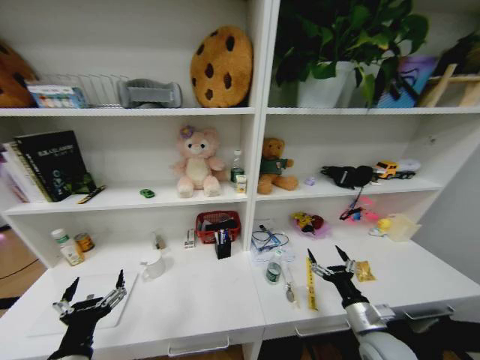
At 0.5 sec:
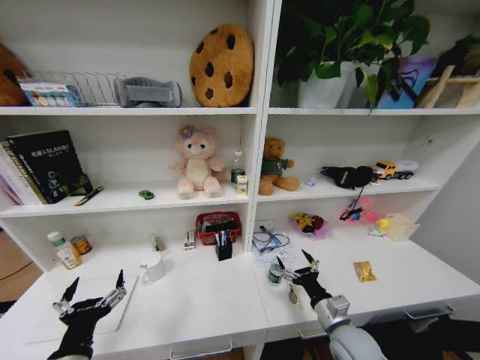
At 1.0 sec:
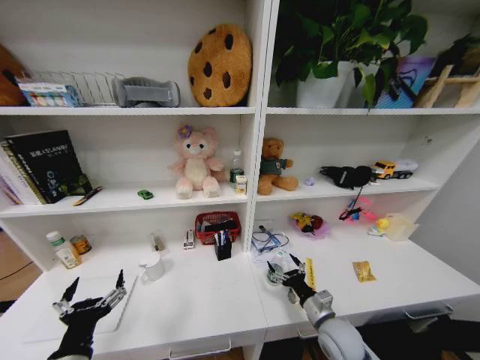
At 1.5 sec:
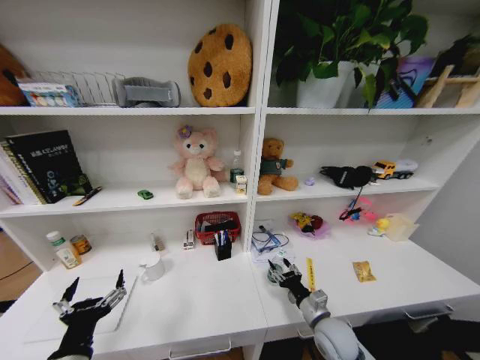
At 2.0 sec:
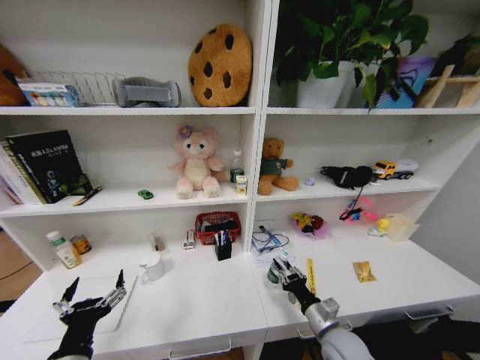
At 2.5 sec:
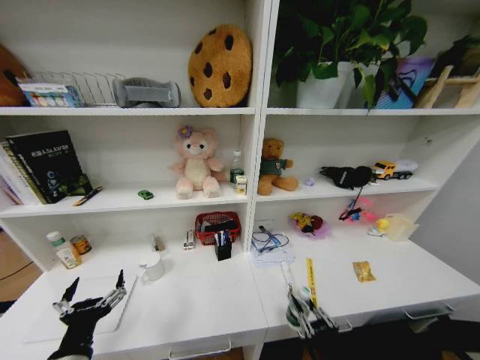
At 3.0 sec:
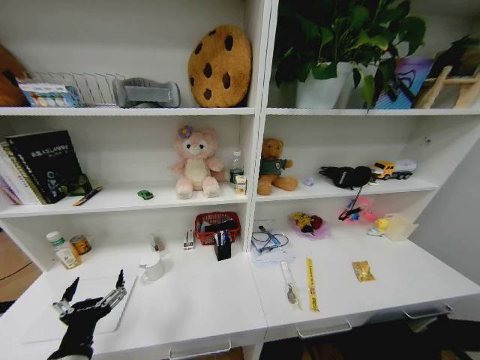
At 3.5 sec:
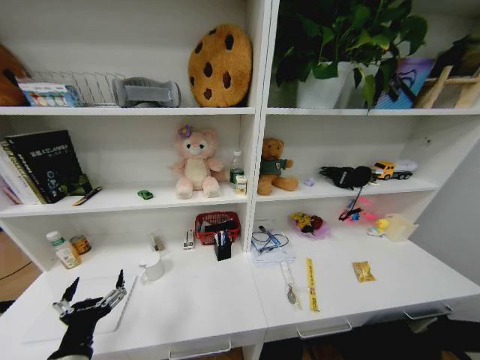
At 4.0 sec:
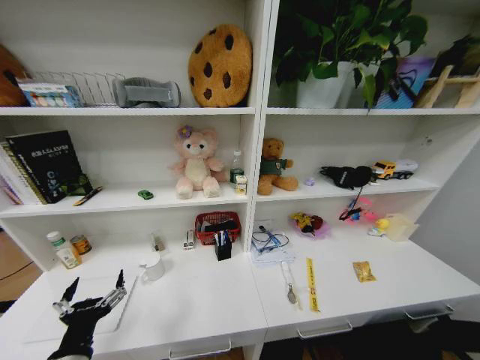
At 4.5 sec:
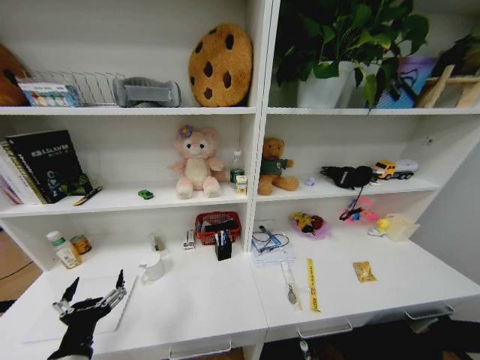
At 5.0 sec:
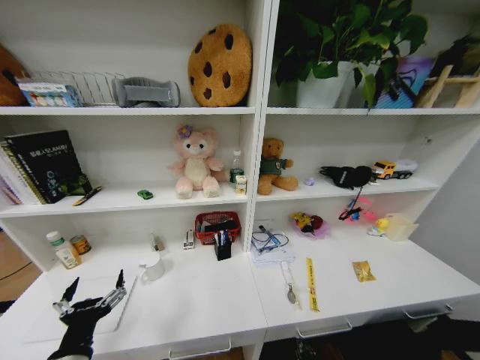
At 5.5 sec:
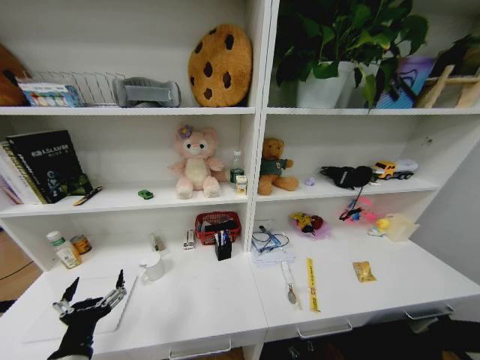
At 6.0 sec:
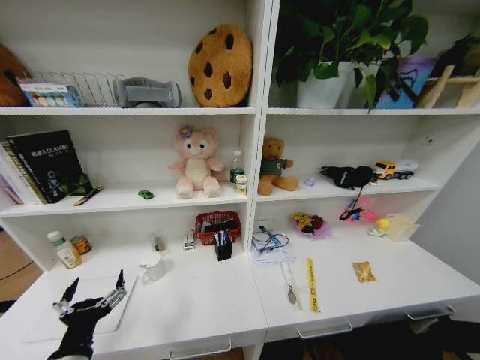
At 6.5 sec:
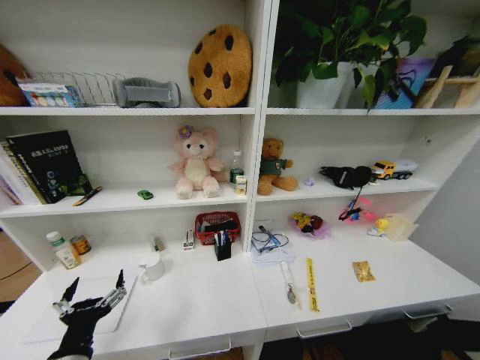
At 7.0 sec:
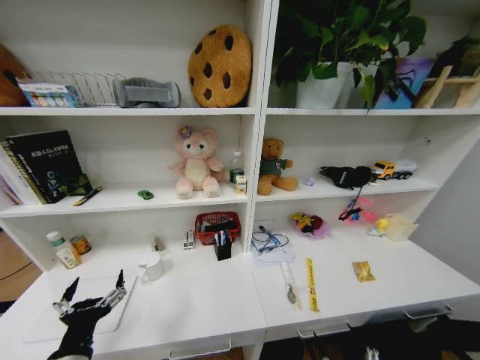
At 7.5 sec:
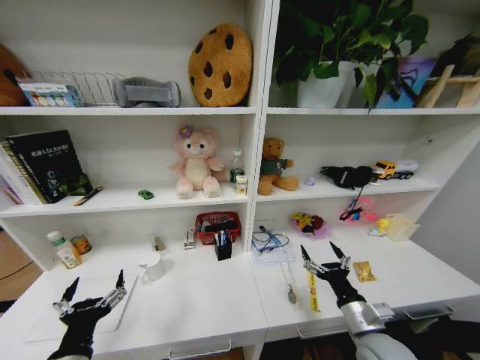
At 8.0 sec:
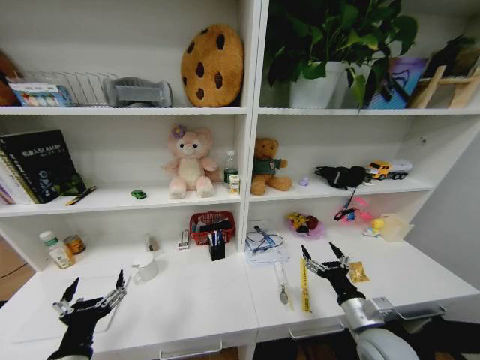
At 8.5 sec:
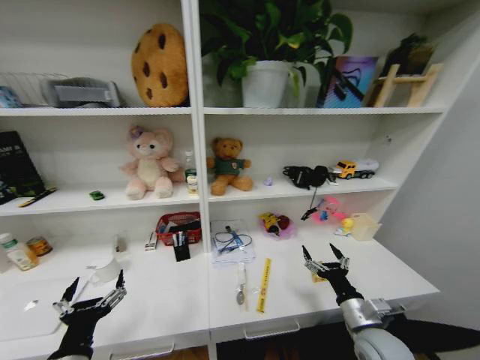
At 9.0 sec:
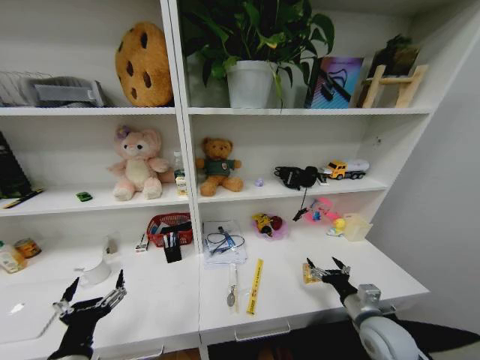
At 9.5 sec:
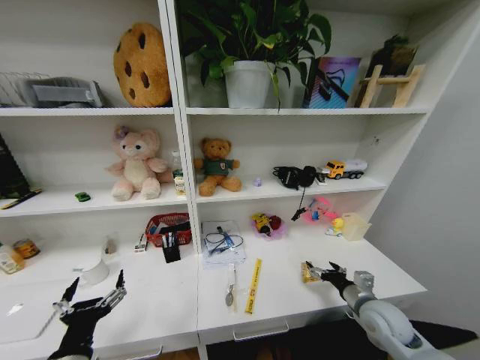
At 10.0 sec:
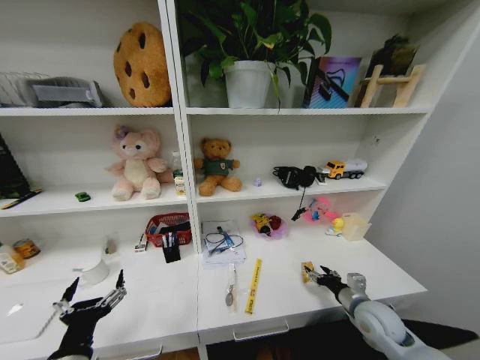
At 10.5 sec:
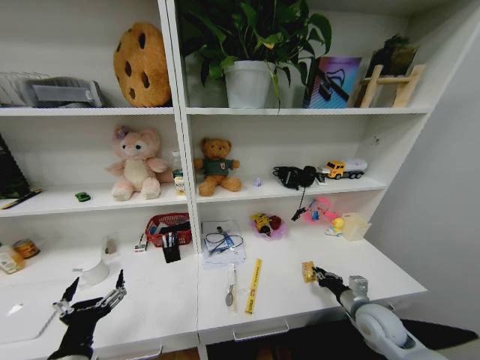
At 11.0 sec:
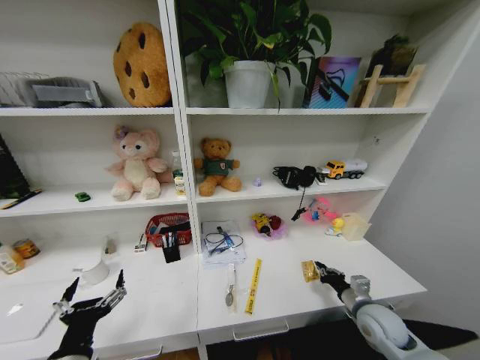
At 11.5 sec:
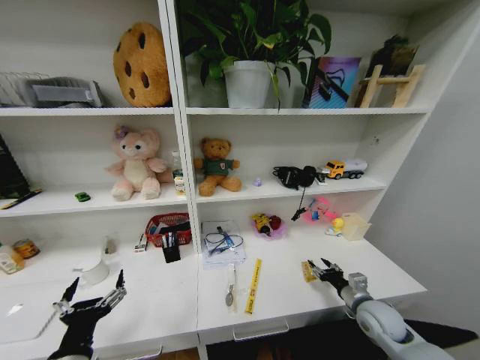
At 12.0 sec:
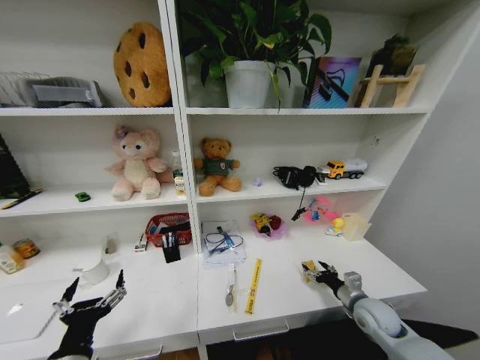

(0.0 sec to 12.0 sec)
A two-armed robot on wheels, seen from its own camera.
Task of the whole recording: Organize the objects on the table.
0.0 sec - 2.0 sec: The right gripper is displaced to the left by some 10 cm, and closes up.
2.0 sec - 4.0 sec: The right gripper heads downward, backward and to the right, covering some 40 cm.
6.0 sec - 8.0 sec: The right gripper is displaced upward and forward by approximately 40 cm.
8.0 sec - 10.0 sec: The right gripper is displaced forward and to the right by about 10 cm.
10.0 sec - 12.0 sec: The right gripper closes and opens again.

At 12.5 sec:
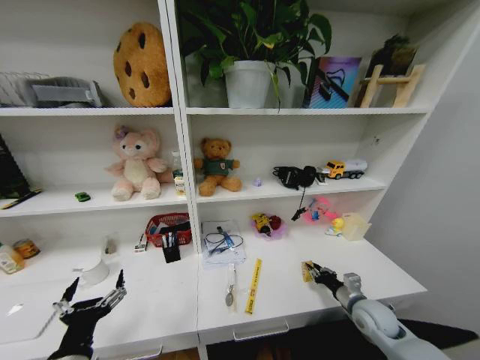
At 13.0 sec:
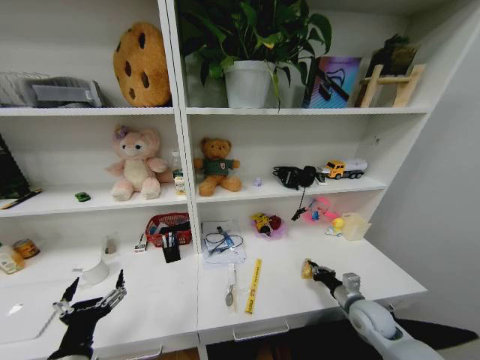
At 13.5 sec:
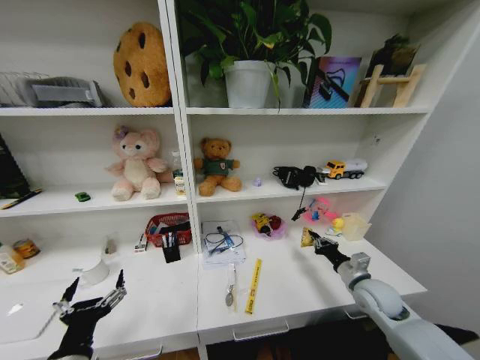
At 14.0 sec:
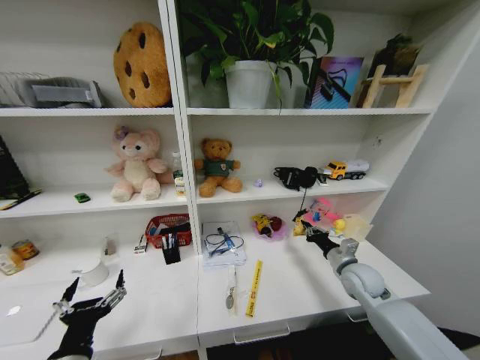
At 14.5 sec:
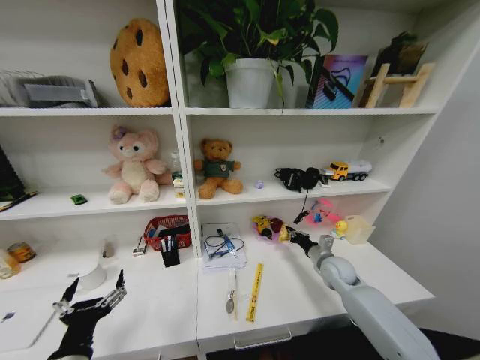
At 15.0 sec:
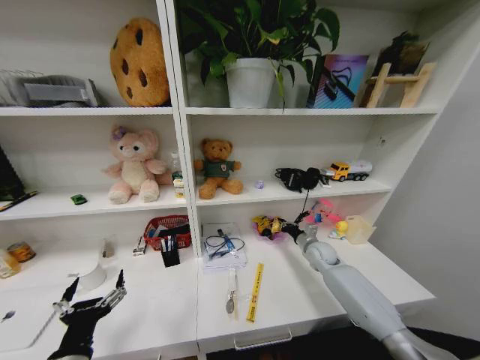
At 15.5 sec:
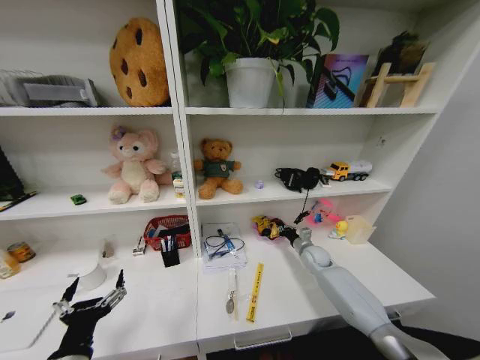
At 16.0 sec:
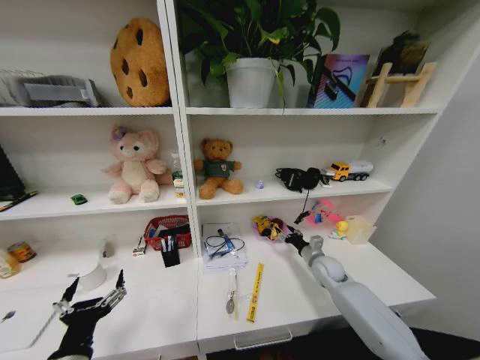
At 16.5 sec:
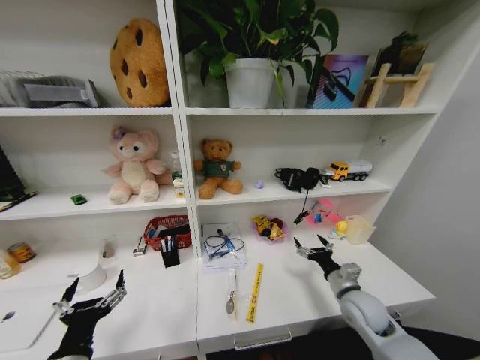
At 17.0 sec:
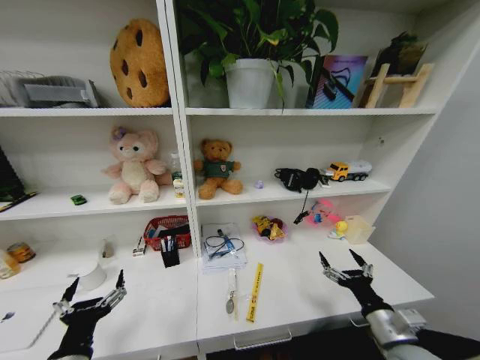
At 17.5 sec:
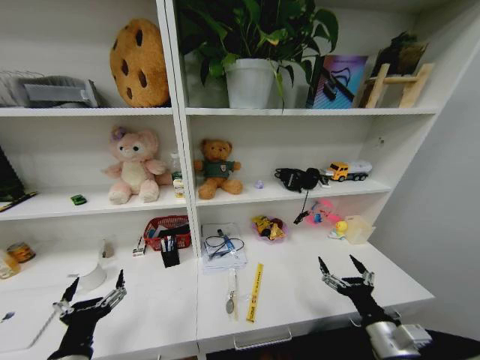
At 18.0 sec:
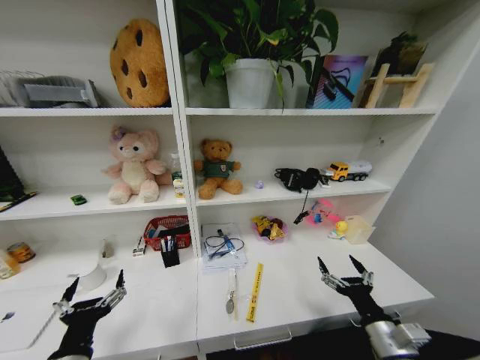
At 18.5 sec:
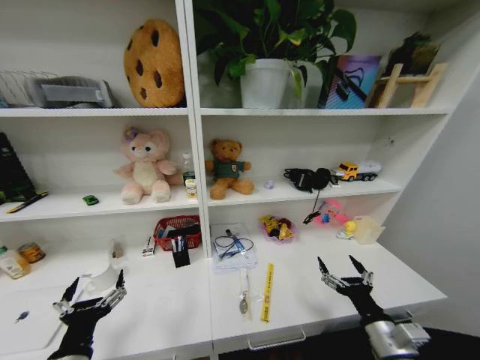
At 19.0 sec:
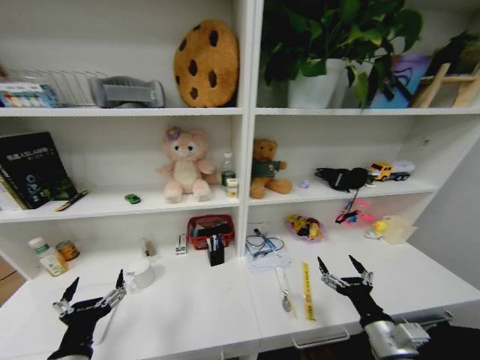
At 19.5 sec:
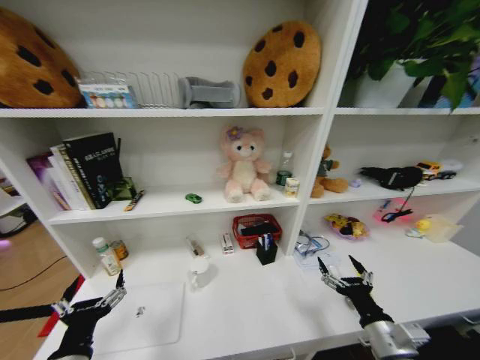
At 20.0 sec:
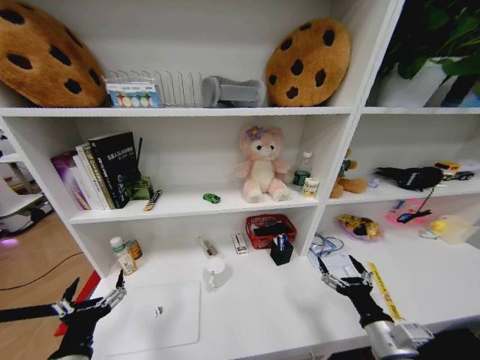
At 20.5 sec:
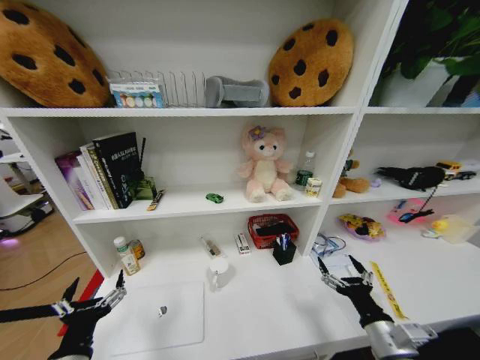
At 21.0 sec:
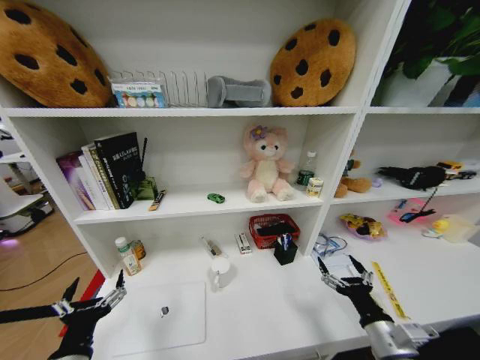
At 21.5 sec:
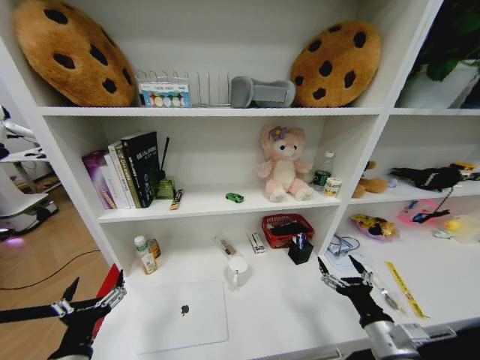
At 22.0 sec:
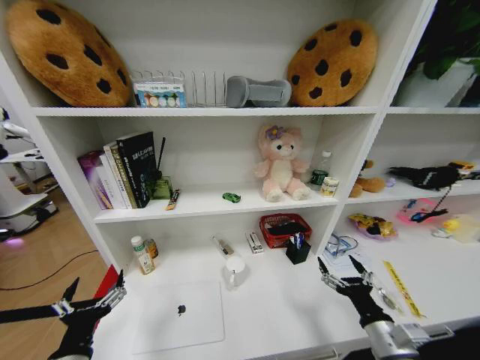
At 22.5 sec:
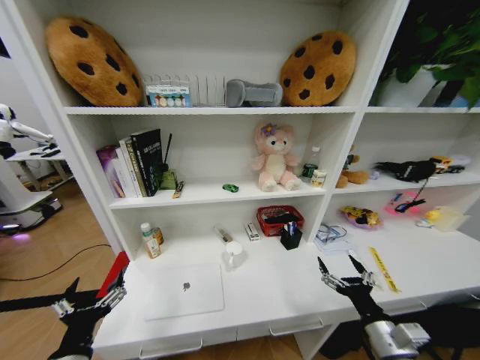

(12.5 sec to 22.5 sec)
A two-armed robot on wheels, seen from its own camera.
Task of the whole recording: Organize the objects on the table.
12.5 sec - 14.5 sec: The right gripper heads forward, covering approximately 10 cm.
14.5 sec - 16.5 sec: The right gripper goes approximately 10 cm backward, and opens.
16.5 sec - 18.5 sec: The right gripper heads backward, covering some 15 cm.
